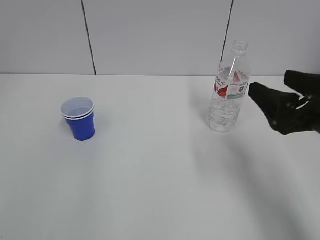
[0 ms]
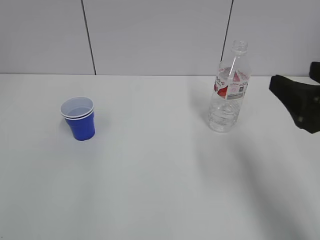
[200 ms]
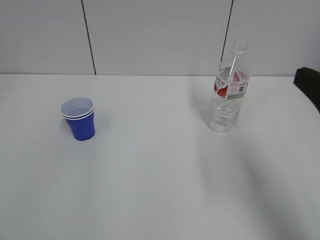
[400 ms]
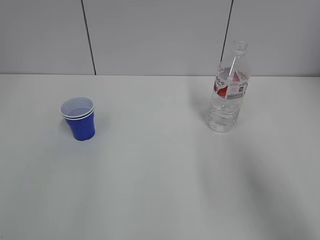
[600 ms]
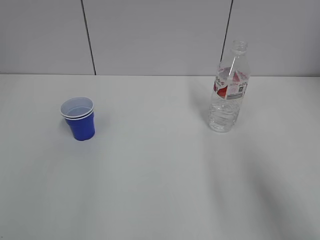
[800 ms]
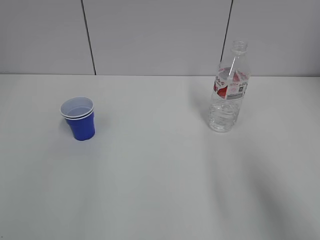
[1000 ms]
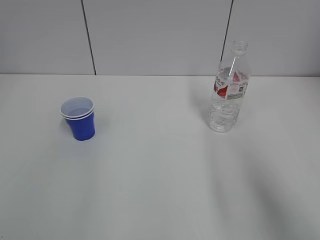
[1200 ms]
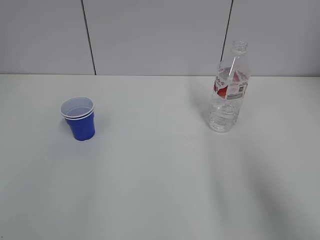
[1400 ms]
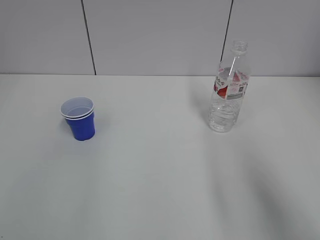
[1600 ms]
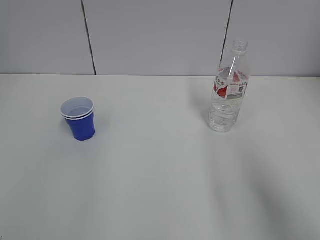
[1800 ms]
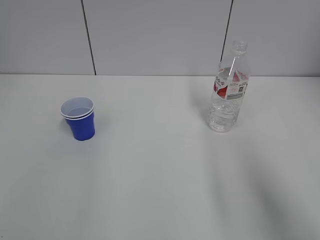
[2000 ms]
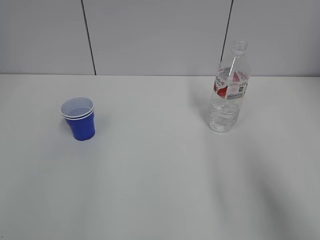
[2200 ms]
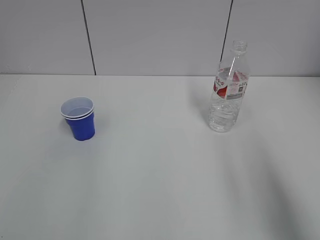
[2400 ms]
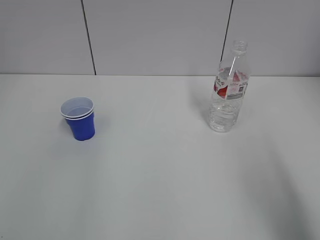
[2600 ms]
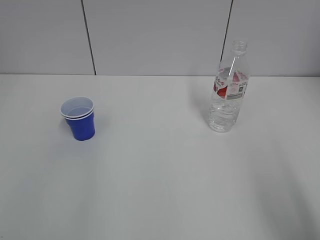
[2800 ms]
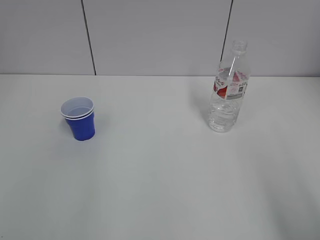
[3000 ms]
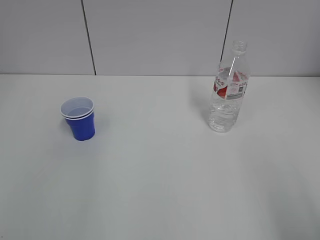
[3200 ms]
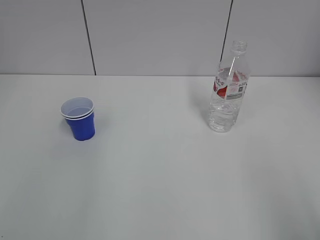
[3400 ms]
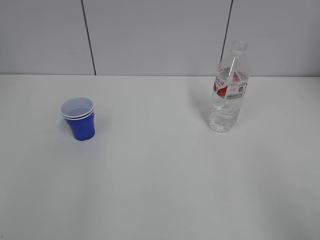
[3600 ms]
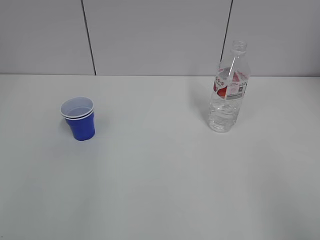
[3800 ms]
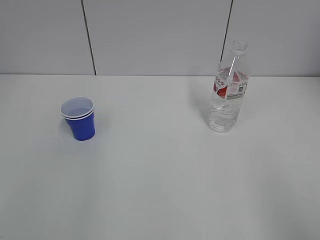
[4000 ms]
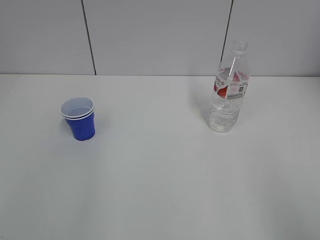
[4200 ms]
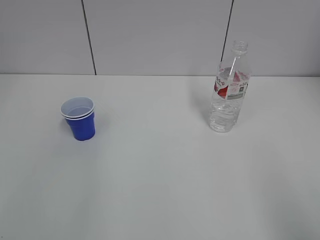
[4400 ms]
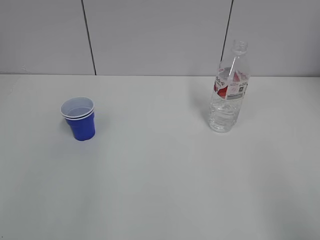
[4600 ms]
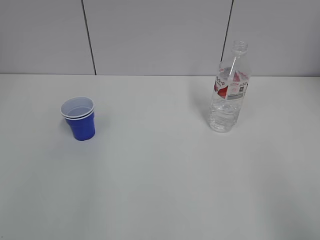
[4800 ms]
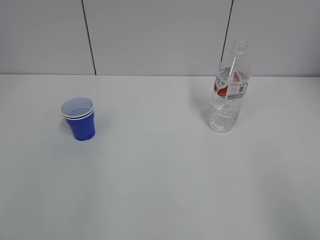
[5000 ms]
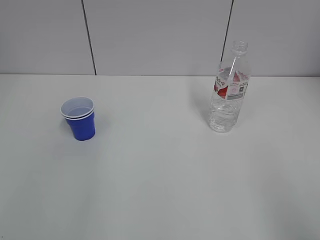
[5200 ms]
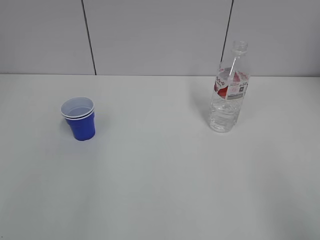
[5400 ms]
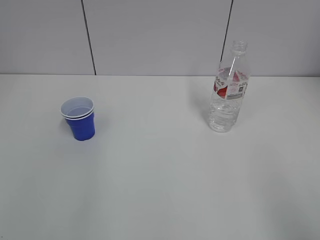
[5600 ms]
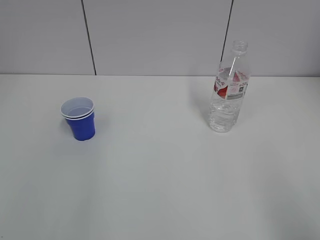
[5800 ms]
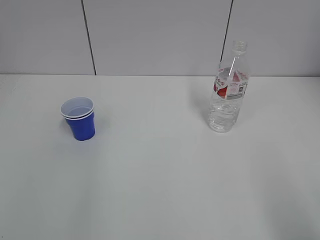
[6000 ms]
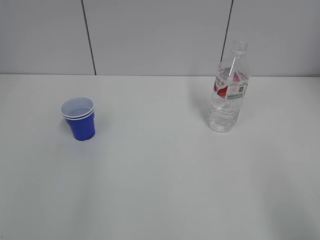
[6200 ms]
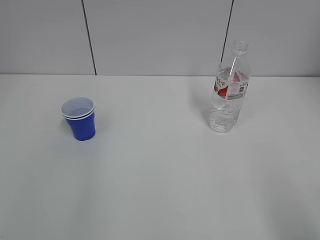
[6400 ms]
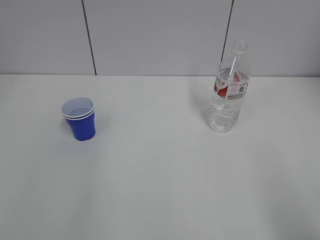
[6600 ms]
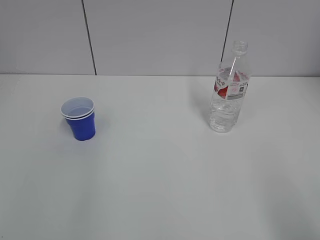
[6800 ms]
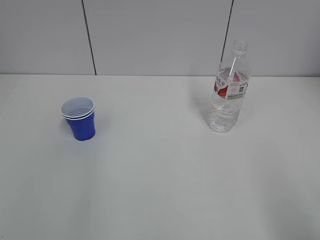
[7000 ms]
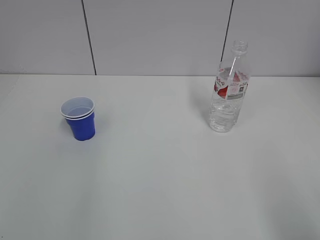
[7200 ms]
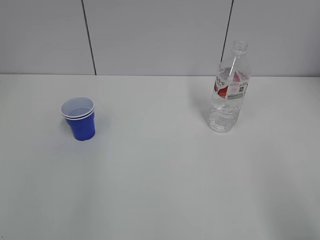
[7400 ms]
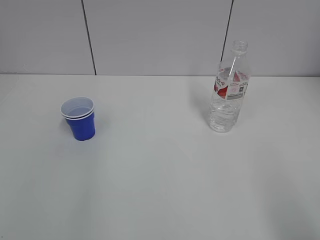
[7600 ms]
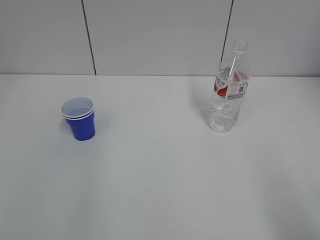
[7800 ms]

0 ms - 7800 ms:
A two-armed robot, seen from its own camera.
0 ms - 1600 ms: The right gripper shifts about 15 cm backward and upward.
1600 ms - 3200 ms: The right gripper moves backward, roughly 10 cm.
6200 ms - 7800 ms: Neither gripper changes place.

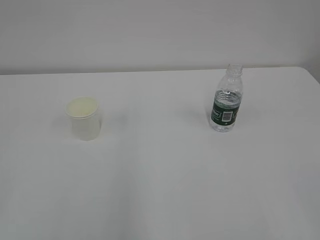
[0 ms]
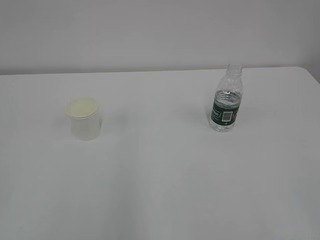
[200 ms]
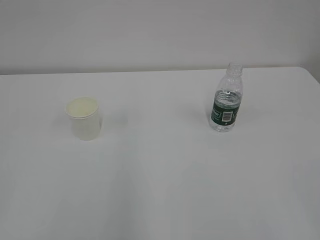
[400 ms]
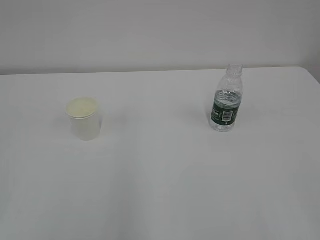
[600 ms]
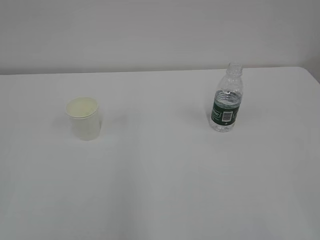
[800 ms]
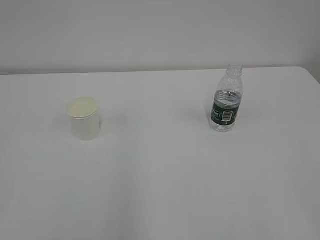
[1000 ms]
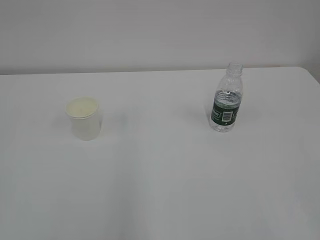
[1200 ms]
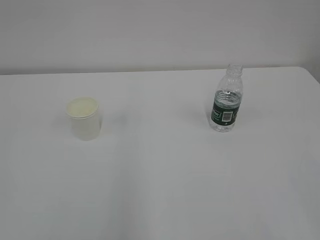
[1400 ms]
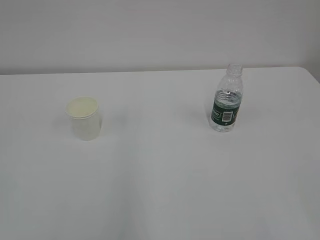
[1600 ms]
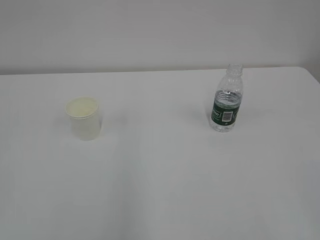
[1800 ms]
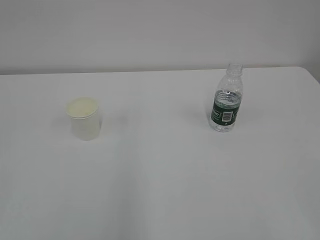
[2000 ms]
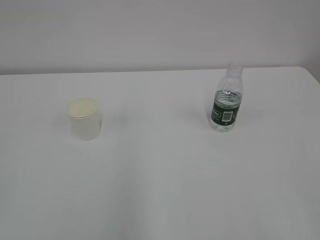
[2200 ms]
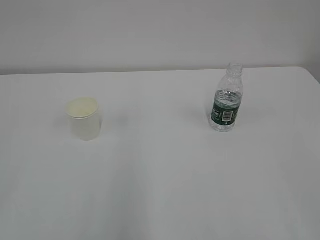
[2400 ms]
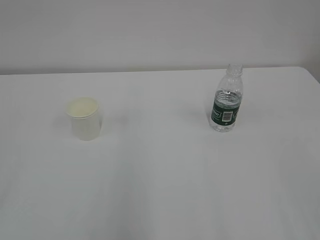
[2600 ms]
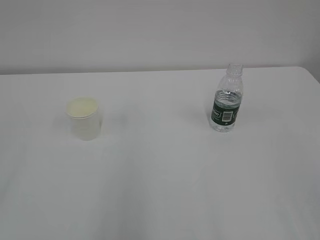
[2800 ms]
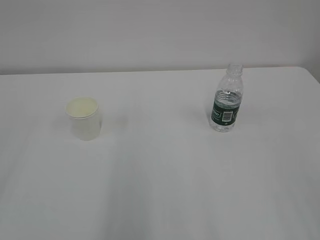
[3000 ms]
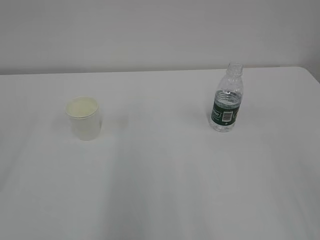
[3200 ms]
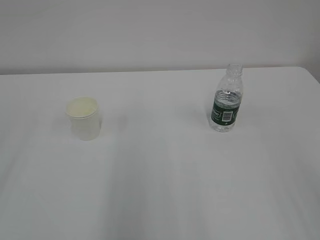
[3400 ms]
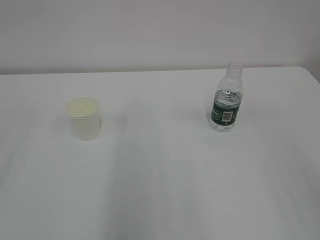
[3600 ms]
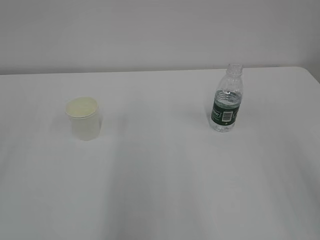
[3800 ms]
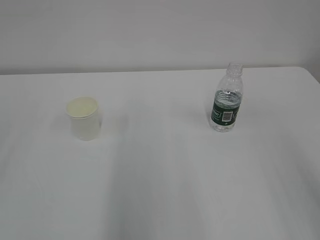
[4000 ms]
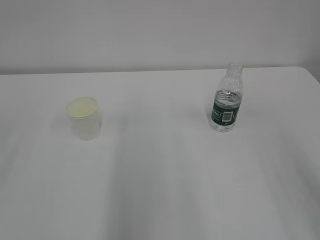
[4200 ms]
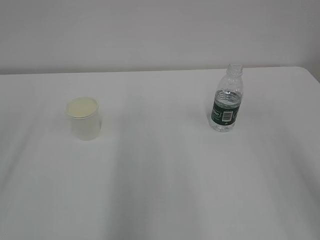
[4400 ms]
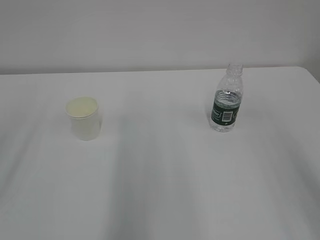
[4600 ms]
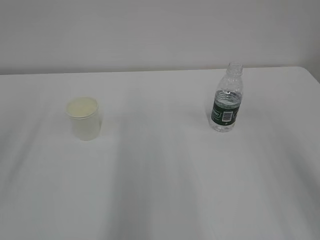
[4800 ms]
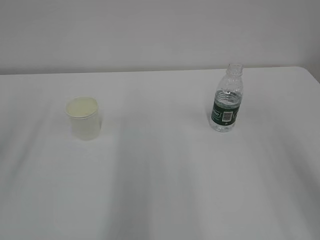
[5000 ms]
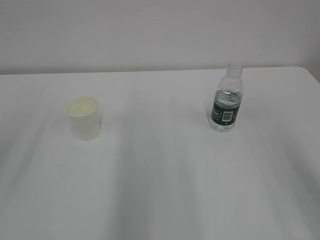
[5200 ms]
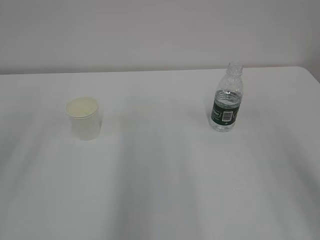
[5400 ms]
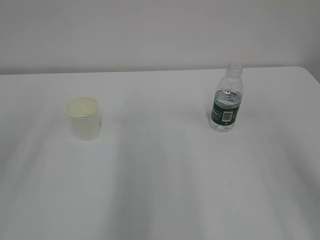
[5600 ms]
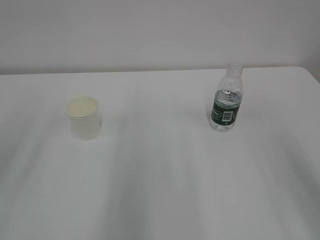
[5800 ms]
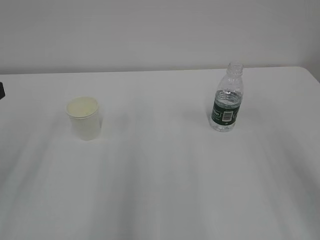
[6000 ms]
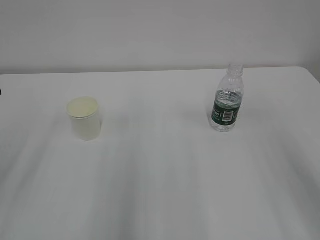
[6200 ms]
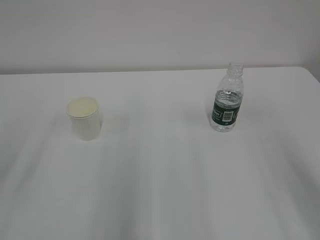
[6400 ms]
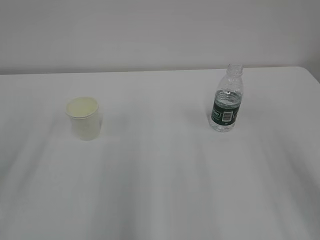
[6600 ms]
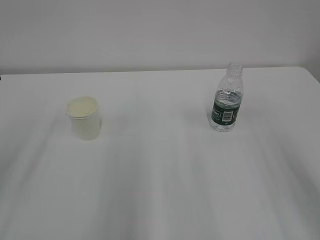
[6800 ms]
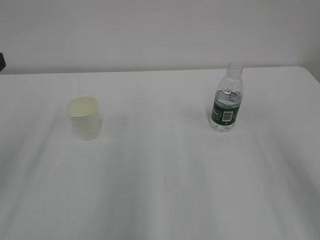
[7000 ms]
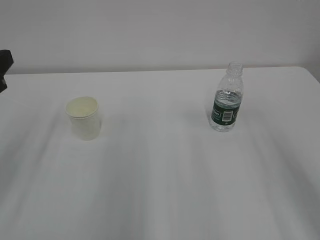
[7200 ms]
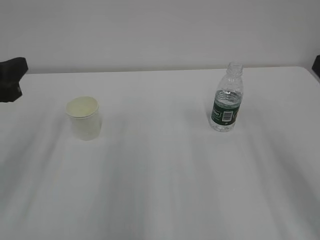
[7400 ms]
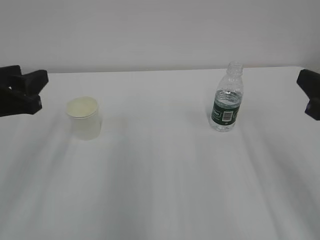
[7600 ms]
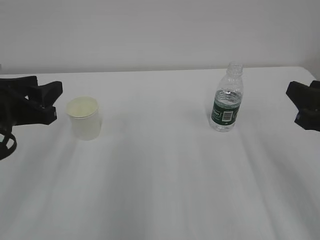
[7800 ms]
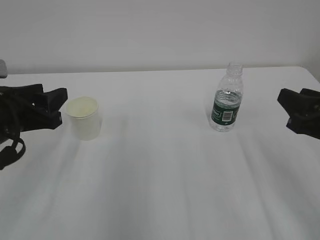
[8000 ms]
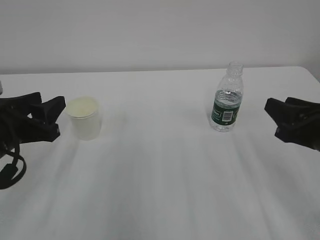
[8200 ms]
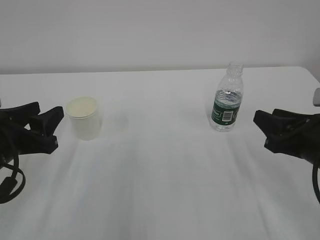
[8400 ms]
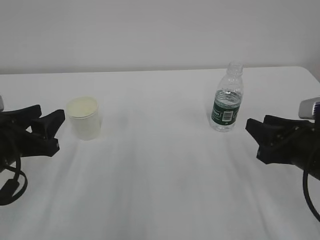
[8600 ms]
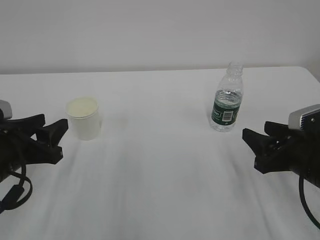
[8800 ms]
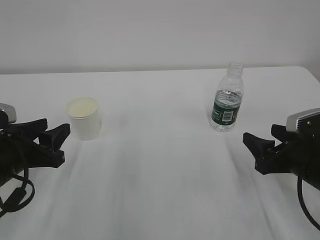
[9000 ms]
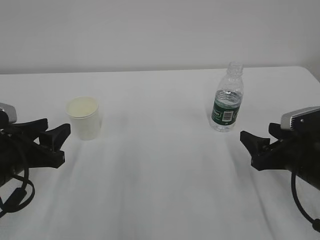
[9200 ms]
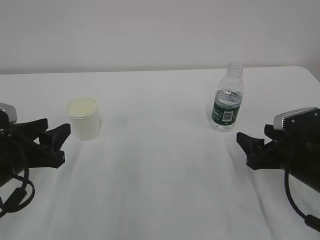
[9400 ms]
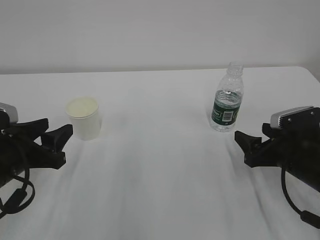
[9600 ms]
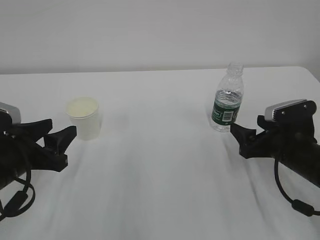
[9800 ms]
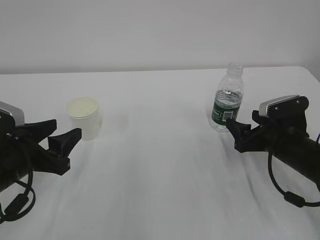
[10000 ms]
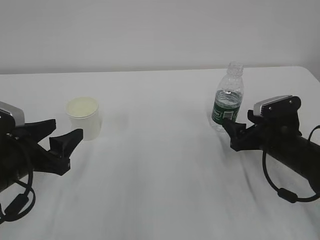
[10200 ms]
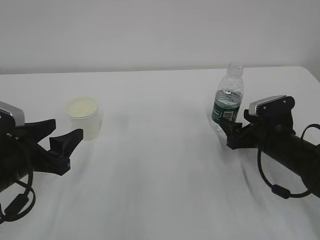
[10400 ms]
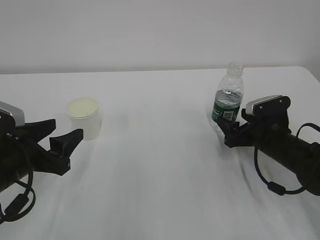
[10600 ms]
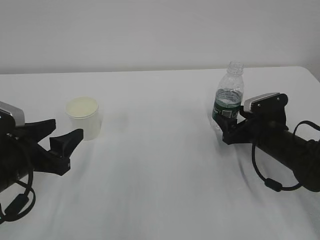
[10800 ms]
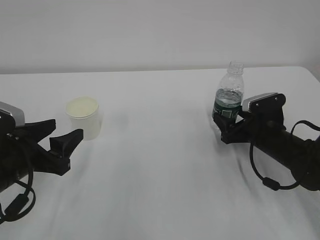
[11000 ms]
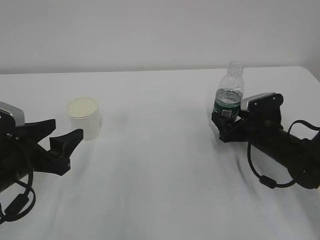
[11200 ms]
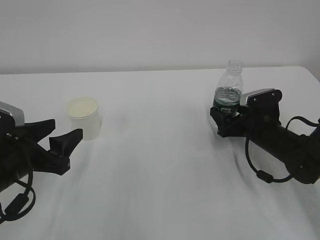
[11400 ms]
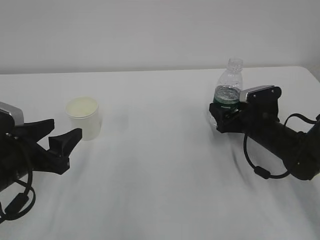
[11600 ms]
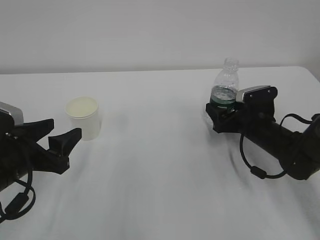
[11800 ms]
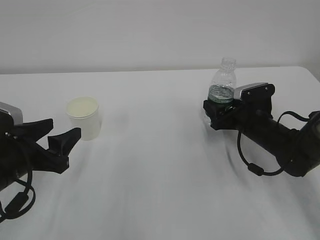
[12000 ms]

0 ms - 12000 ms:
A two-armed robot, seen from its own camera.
6000 ms - 7600 ms: The left gripper moves forward, about 5 cm. Meanwhile the right gripper travels downward by approximately 10 cm.
7600 ms - 9000 ms: Both grippers move downward, some 10 cm. The right gripper opens up.
9000 ms - 10400 ms: The left gripper opens; the right gripper travels forward by approximately 10 cm.
10400 ms - 12000 ms: The right gripper shifts some 5 cm forward.

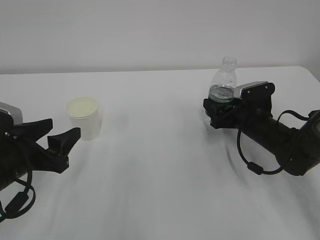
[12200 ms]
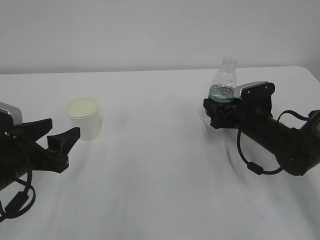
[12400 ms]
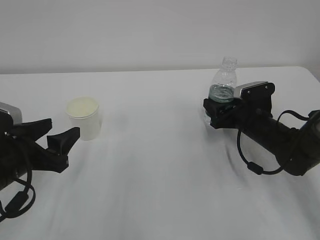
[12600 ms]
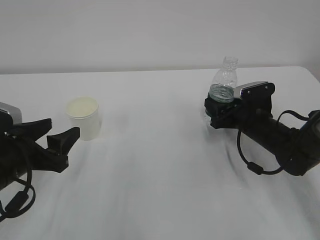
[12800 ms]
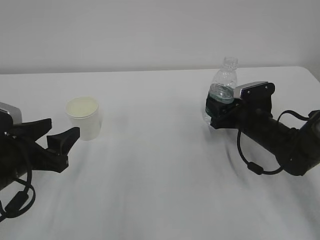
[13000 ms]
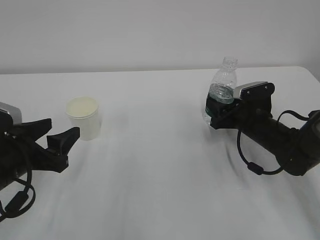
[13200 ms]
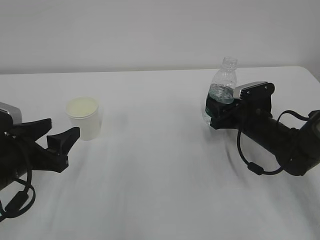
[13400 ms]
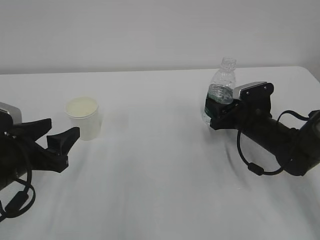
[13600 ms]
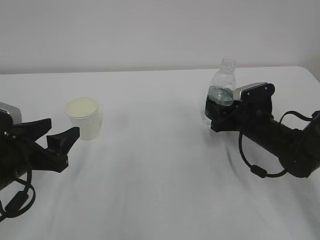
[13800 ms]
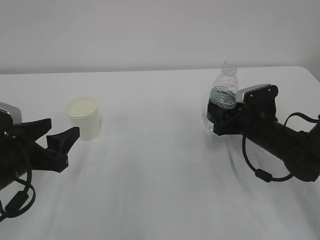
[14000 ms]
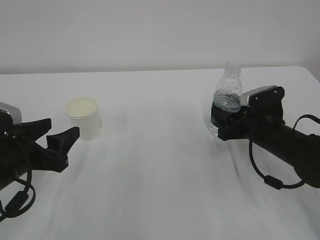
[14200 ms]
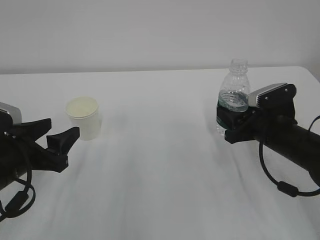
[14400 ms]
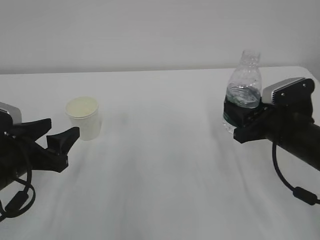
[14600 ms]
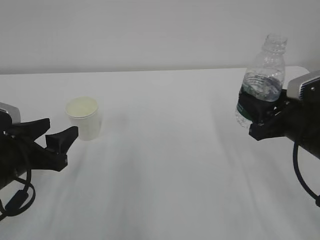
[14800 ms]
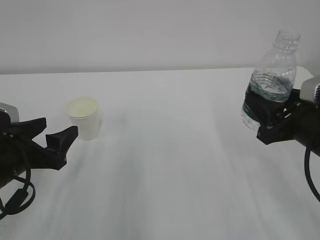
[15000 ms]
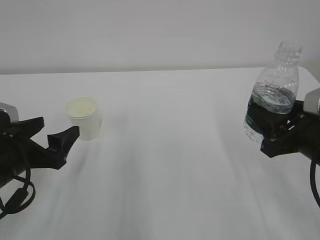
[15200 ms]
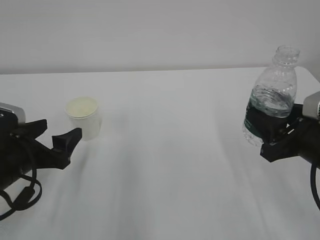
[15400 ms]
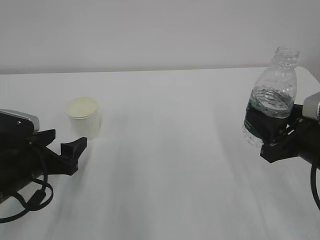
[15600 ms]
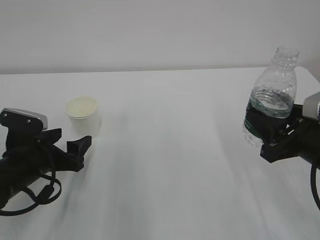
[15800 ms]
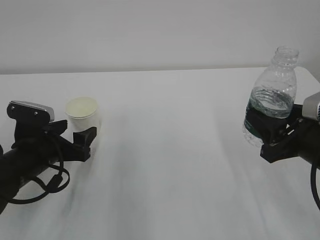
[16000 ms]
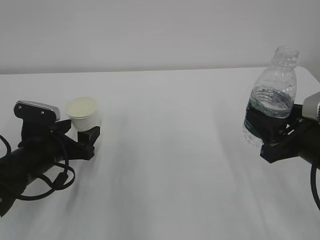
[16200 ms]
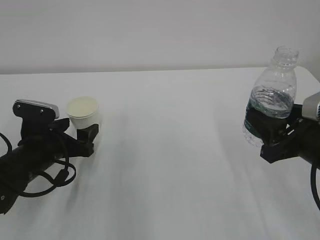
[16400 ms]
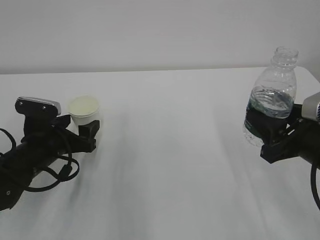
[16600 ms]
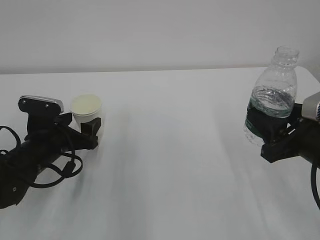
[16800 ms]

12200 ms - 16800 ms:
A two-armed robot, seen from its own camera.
12200 ms - 13800 ms: The right gripper closes its fingers.
13800 ms - 15200 ms: The left gripper opens. The right gripper heads backward and upward, covering roughly 20 cm.
15200 ms - 16800 ms: The left gripper heads forward, covering approximately 10 cm.
